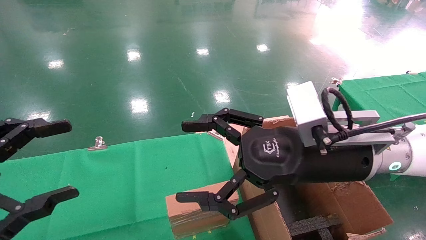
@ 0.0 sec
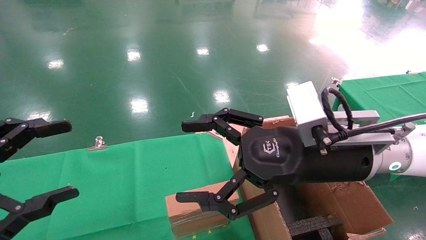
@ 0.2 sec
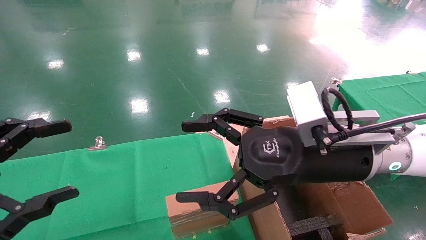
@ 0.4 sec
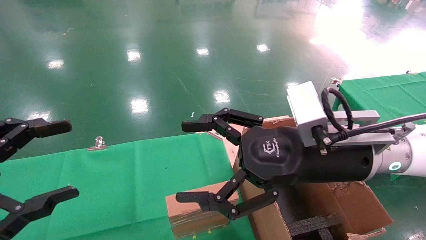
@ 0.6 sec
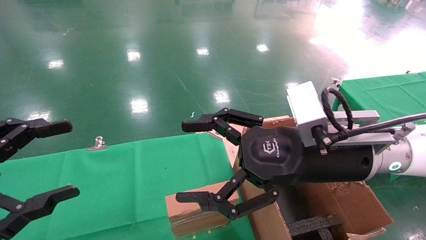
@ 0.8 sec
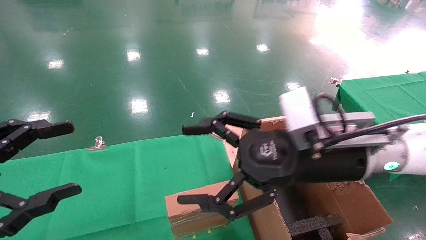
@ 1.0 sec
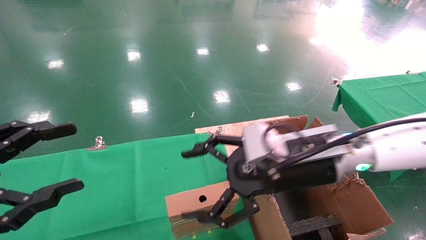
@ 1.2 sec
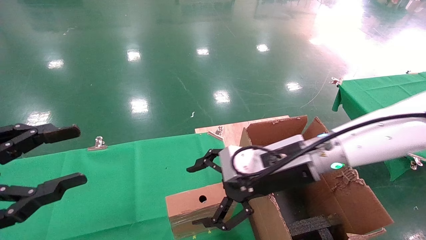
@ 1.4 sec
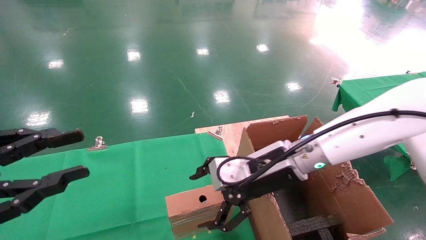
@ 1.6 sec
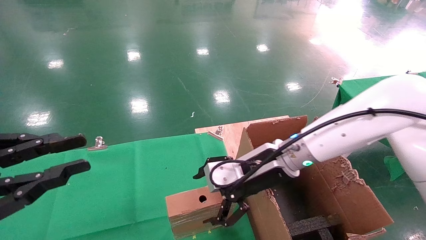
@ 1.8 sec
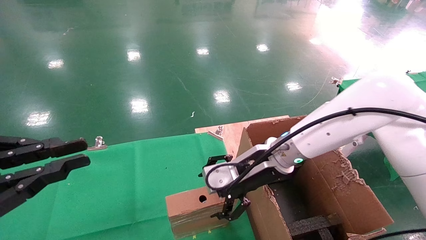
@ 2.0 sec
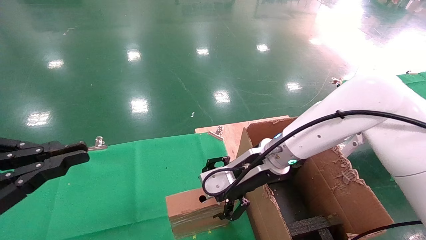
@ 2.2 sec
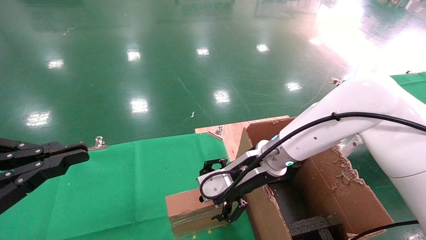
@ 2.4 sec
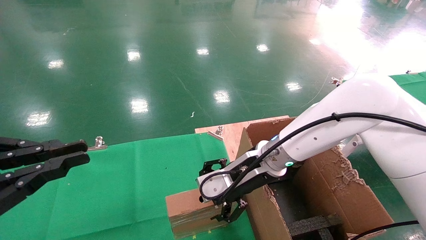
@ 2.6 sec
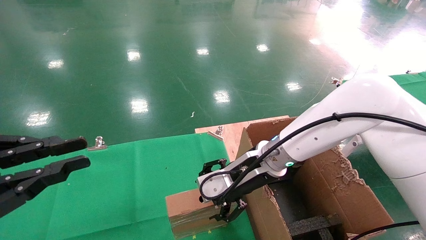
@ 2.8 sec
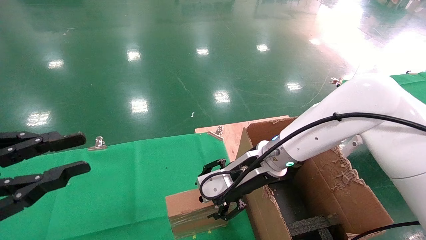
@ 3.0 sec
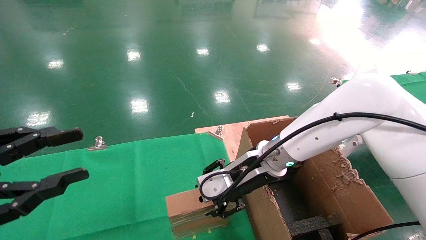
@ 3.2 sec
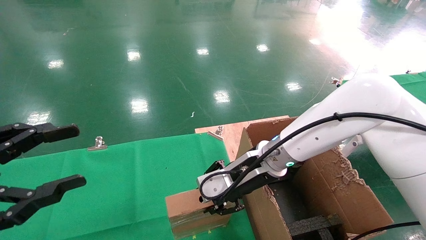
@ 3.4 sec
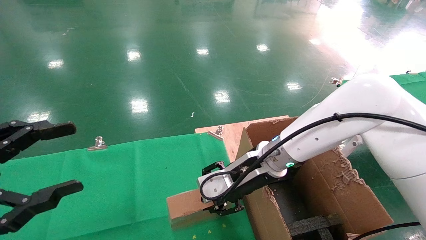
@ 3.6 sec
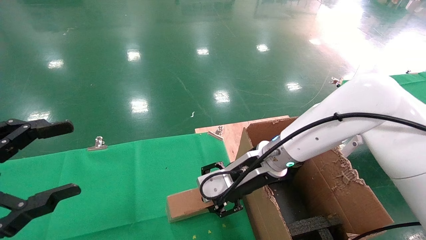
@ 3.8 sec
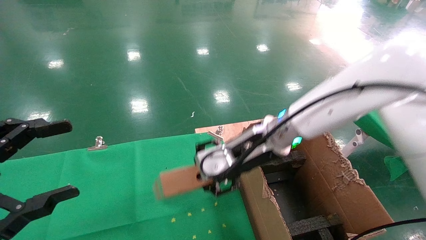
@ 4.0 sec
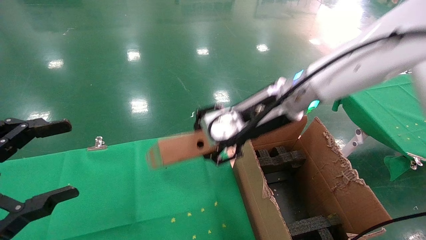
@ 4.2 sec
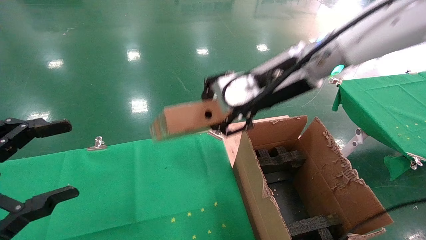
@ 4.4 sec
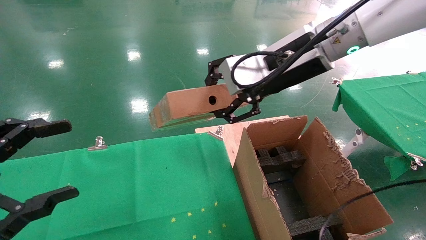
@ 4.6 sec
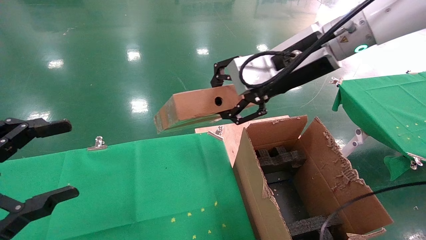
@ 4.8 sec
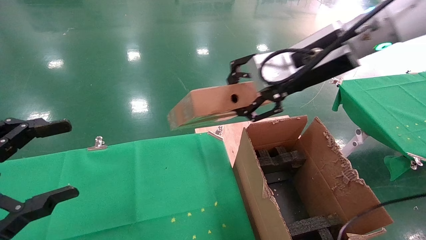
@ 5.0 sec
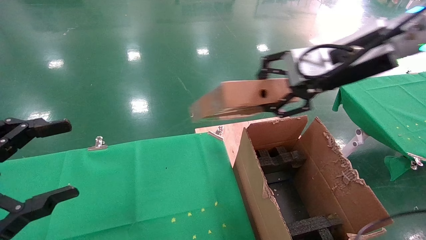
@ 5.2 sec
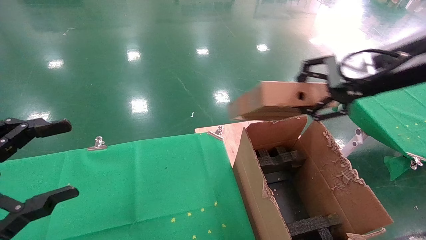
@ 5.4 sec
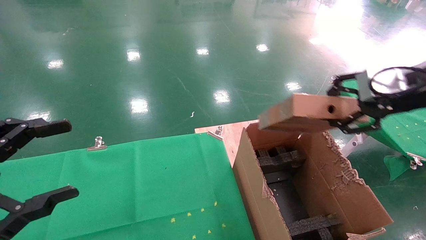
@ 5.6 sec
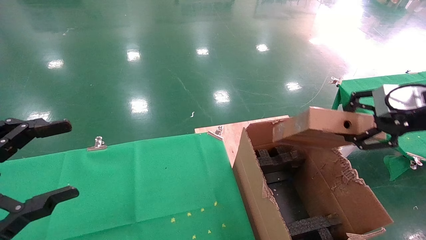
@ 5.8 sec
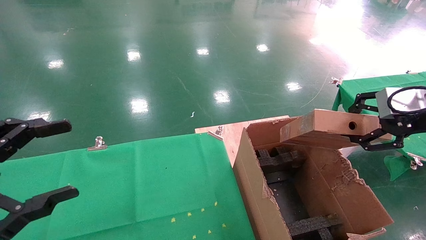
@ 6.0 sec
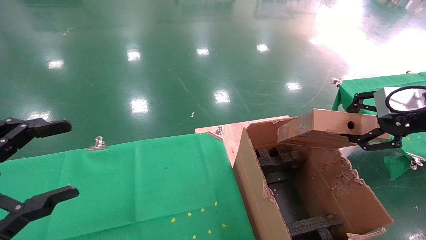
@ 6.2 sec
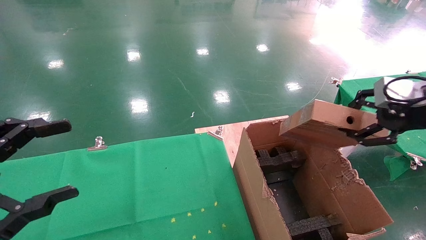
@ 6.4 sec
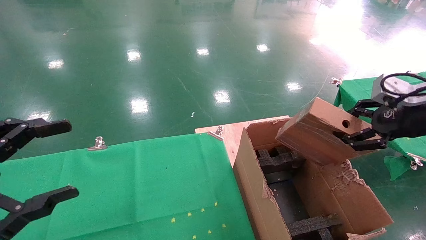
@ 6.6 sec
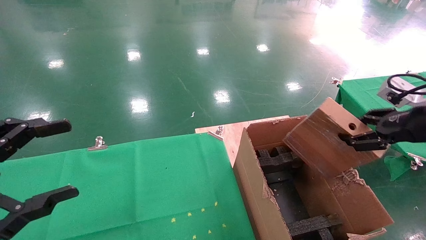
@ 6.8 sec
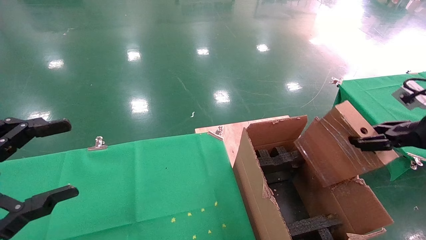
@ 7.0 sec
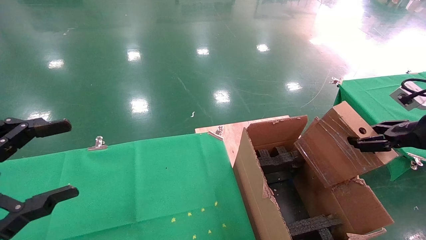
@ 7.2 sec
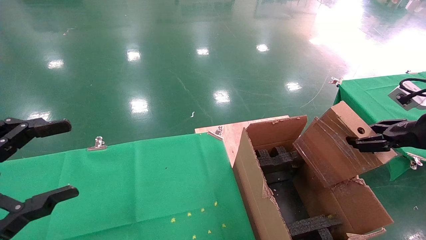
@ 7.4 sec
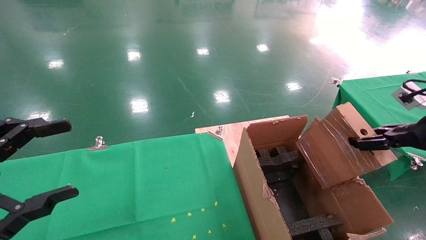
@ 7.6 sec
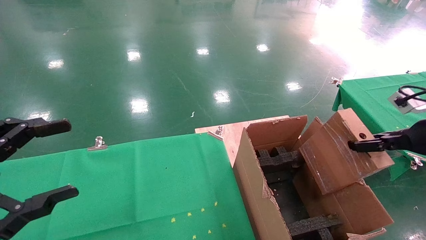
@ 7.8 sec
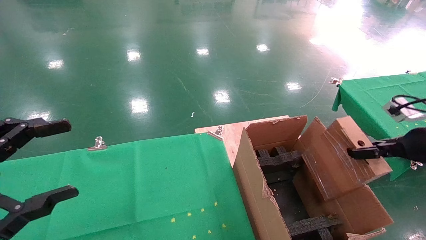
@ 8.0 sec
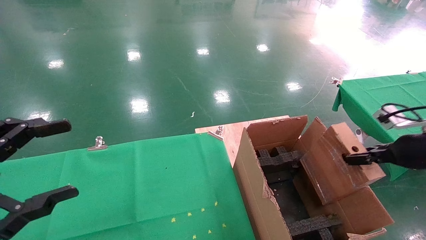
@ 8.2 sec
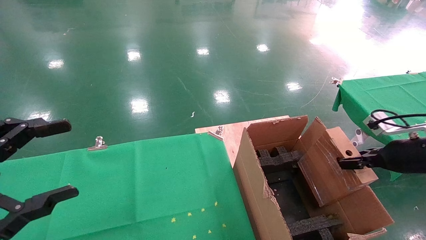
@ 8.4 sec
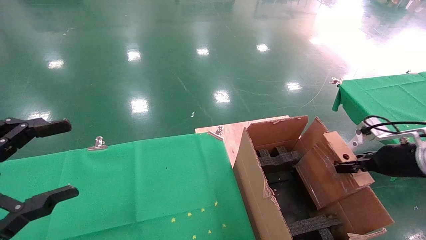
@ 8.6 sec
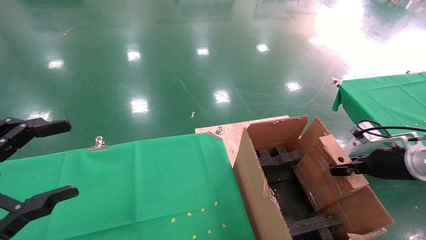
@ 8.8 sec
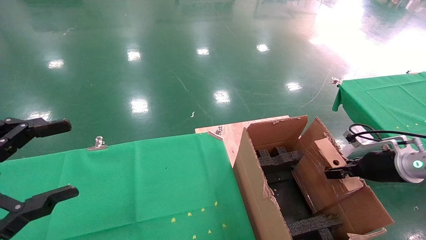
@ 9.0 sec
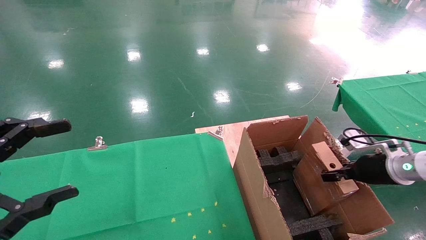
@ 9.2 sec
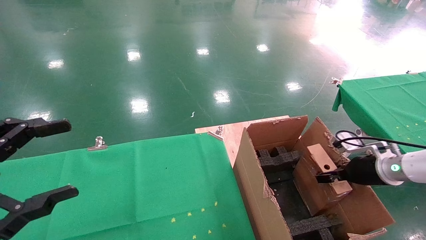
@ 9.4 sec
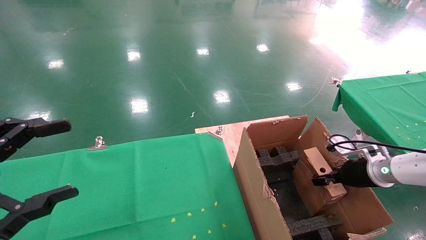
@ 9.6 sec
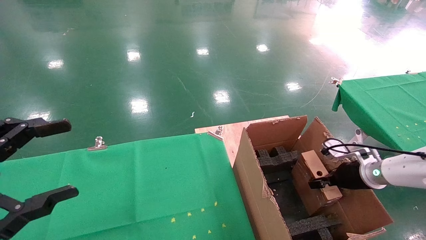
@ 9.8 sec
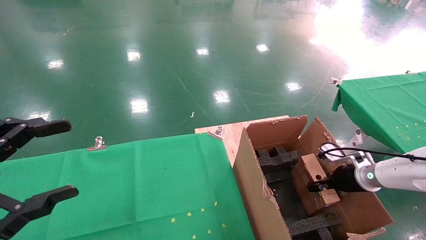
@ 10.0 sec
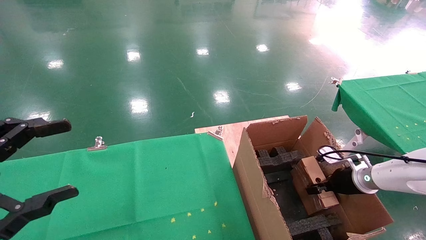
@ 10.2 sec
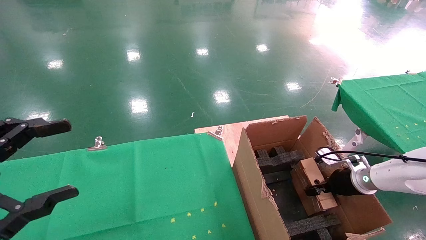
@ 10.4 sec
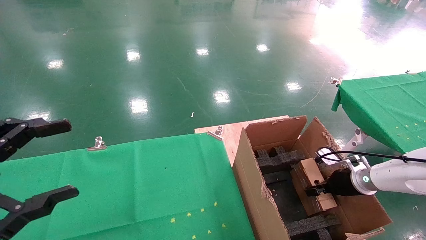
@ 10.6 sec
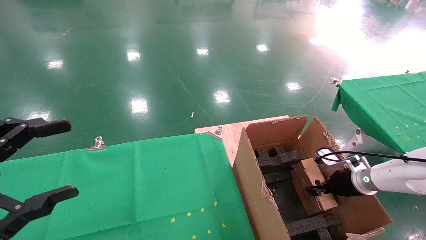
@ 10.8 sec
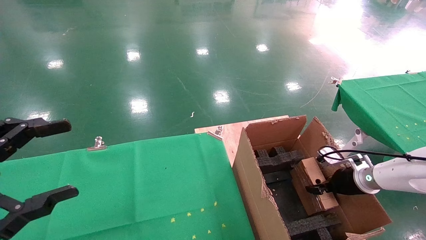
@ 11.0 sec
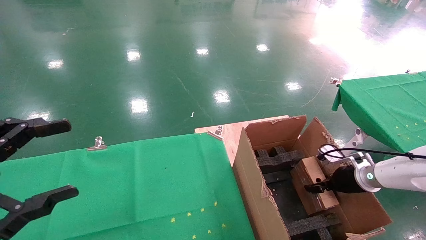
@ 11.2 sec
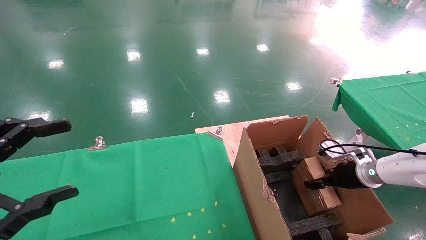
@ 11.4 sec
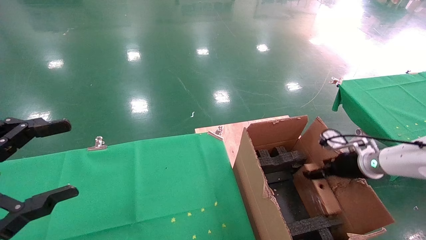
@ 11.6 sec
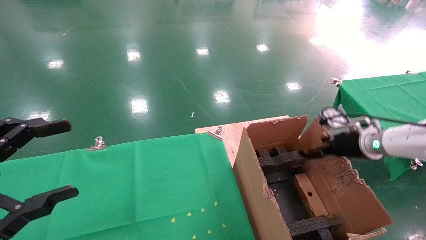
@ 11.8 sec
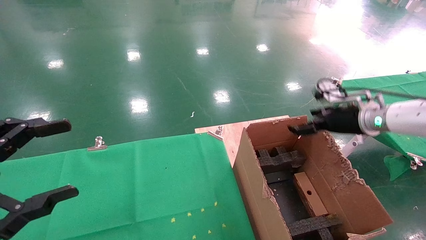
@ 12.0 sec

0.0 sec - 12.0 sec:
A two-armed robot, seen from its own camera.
Task of the whole recording: using a robotic arm to pick up a cardboard box and palace it the carton.
Step, 1.4 sec - 3.6 sec: Pick up the mouse and the power cord paper box.
Step, 3.8 sec - 12.0 sec: Place the mouse and the power cord paper box into the container.
0.0 sec - 1.6 sec: The left gripper closes. Meanwhile the right gripper is displaced forward and downward by roughly 10 cm.
1.6 sec - 3.0 sec: The left gripper closes its fingers.
3.0 sec - 4.4 sec: The left gripper opens up, while the right gripper shifts about 15 cm upward, and closes its fingers.
4.4 sec - 6.0 sec: The right gripper is displaced to the right by some 25 cm.
6.0 sec - 7.6 sec: The right gripper goes some 10 cm downward and to the right.
7.6 sec - 9.0 sec: The right gripper moves downward and forward, roughly 15 cm.
9.0 sec - 10.4 sec: The right gripper shifts approximately 10 cm downward and forward.
10.4 sec - 12.0 sec: The right gripper heads upward, covering some 15 cm, and opens up.

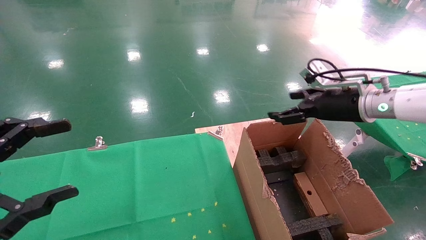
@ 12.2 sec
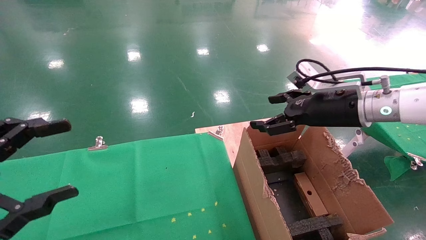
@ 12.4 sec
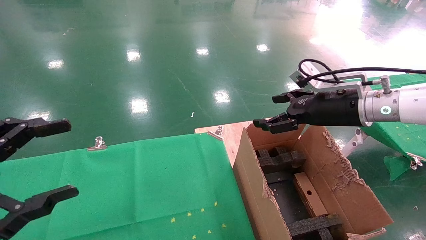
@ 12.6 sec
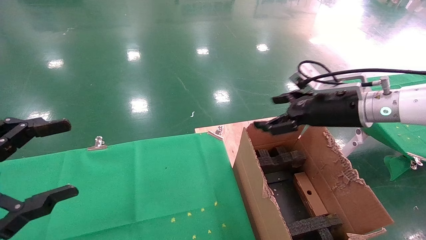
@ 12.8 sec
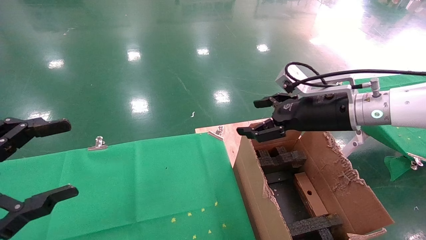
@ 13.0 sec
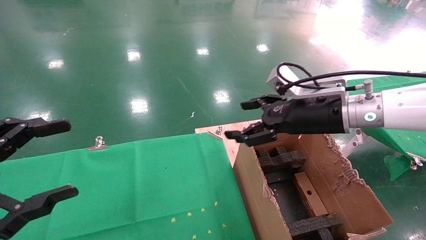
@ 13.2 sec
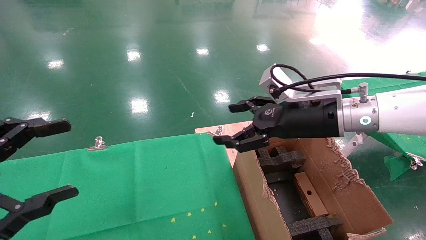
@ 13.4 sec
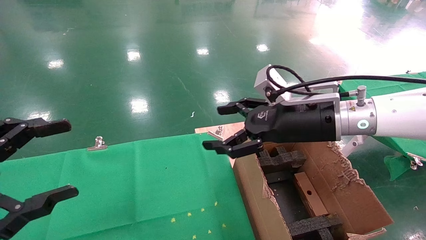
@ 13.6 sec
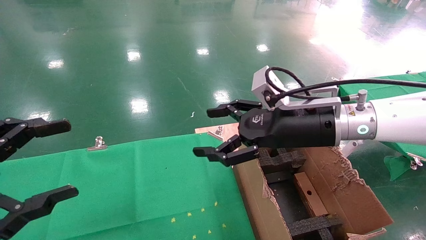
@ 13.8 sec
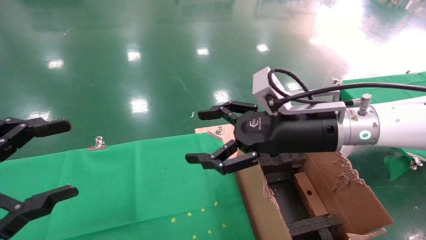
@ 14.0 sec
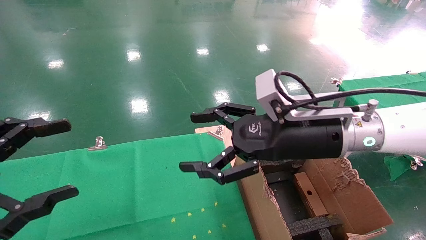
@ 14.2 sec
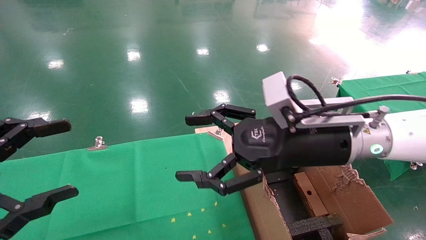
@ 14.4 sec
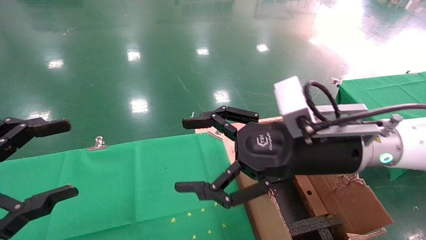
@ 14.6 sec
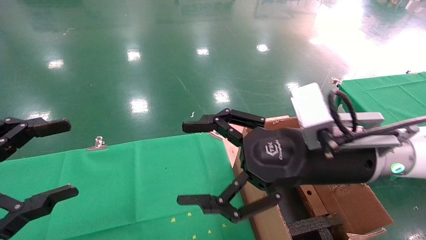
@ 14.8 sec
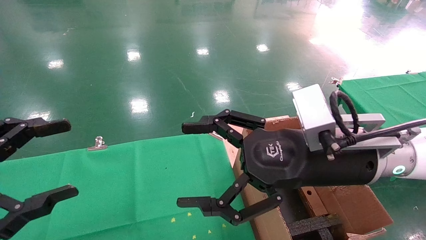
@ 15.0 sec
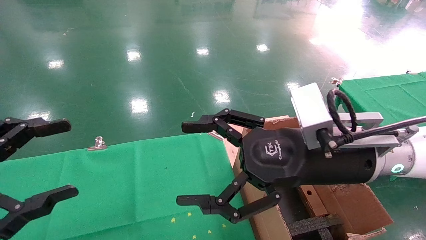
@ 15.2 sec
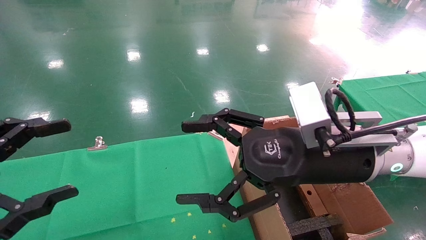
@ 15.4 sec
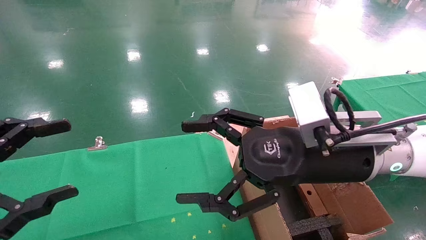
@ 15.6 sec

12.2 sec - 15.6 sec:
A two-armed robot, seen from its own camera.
Task of the whole recording: using a robotic arm to pick up a cardboard box and palace it the carton.
12.2 sec - 13.8 sec: The right gripper travels to the left and backward by roughly 15 cm.
13.8 sec - 15.6 sec: The right gripper shifts roughly 5 cm backward.
